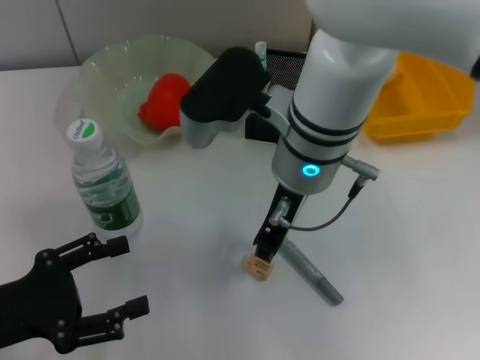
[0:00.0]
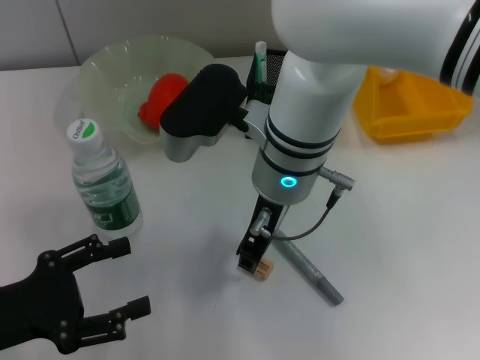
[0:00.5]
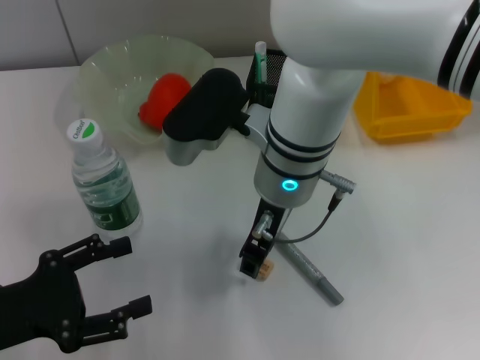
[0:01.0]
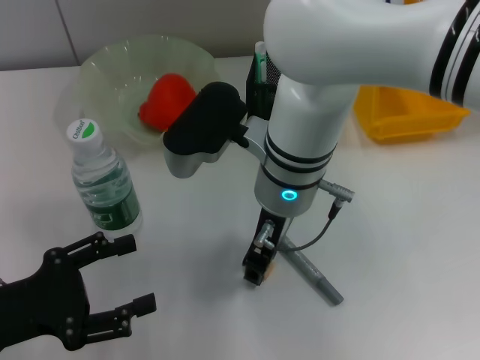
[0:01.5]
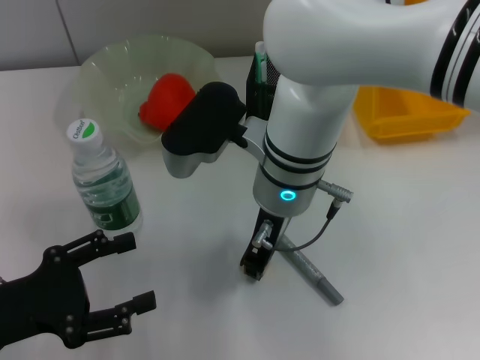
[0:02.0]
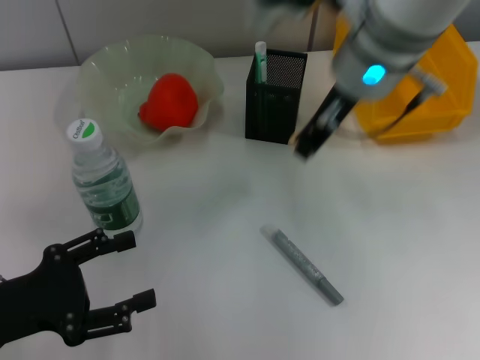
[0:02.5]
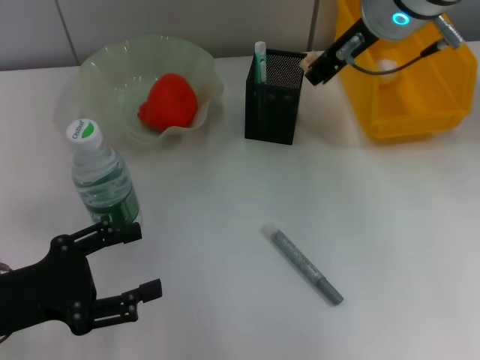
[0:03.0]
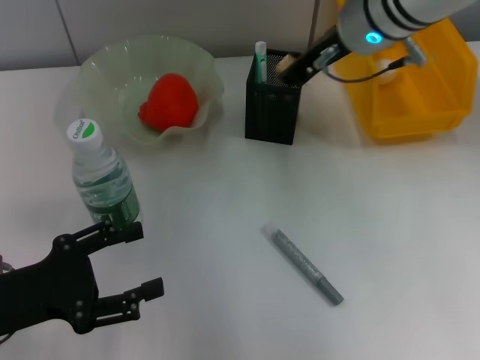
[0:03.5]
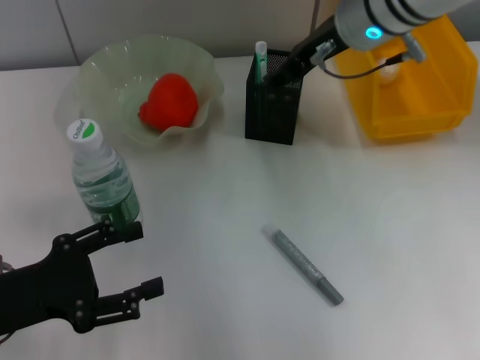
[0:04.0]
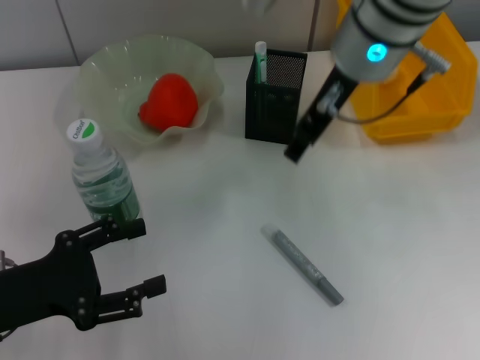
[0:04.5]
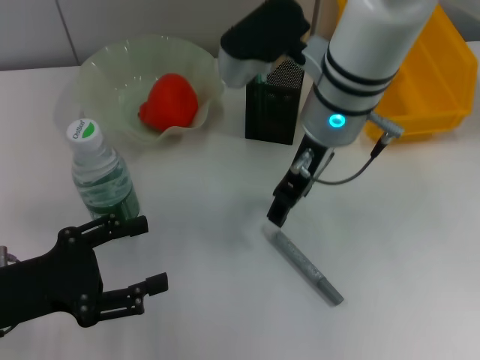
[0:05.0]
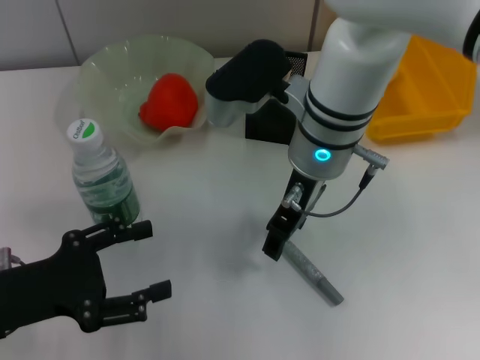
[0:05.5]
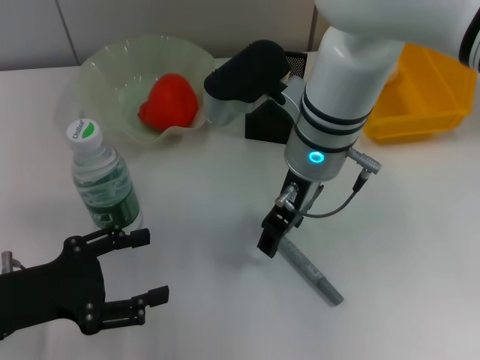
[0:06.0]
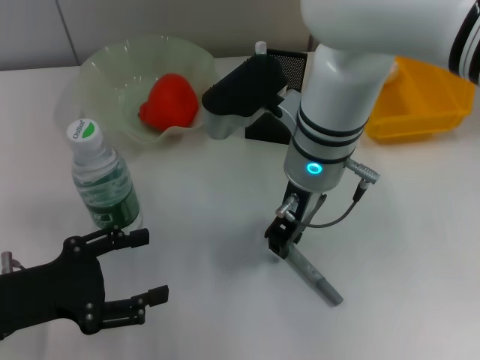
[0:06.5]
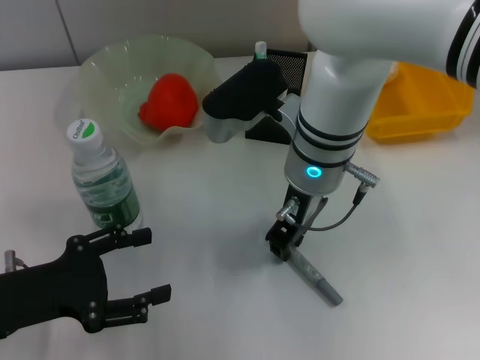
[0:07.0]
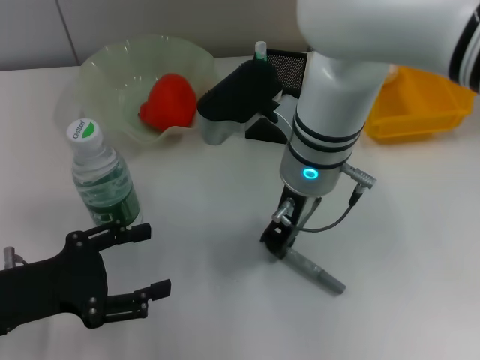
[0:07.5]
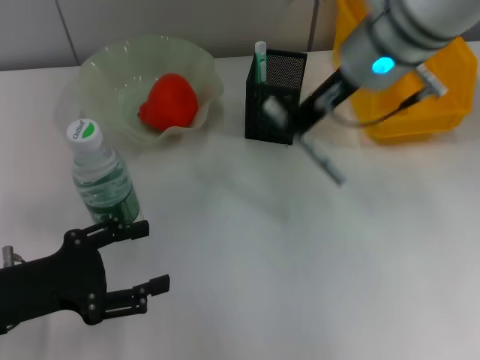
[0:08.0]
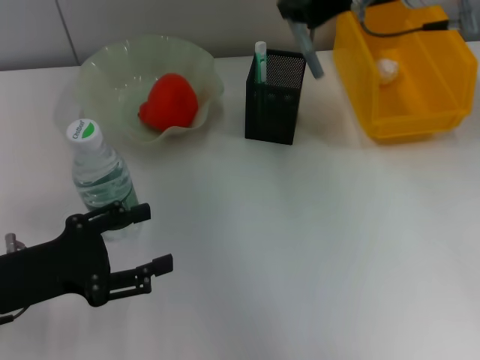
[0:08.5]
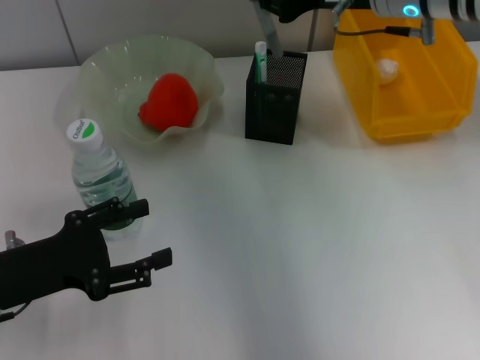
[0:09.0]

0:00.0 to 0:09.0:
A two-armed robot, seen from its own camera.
Step, 0:02.0 to 0:03.5: Put the eraser into the pen holder with the right hand.
Step, 0:04.0 to 0:07.0: Grab the gray glue with the right hand.
0:02.0 to 0:04.5: The right gripper shifts approximately 15 cm upward and to the right, and opens its fingers.
0:04.5 to 0:07.0: The right gripper moves downward, approximately 10 cm, and closes its fingers.
0:07.0 to 0:09.0: The right gripper heads to the right, upward and forward, covering roughly 15 cm.

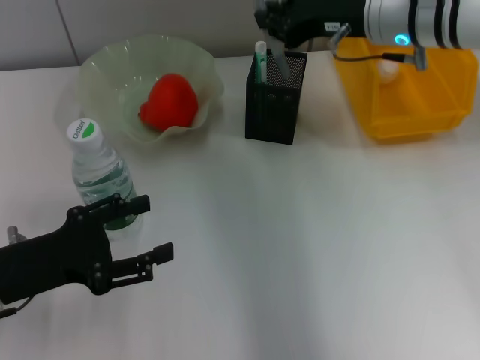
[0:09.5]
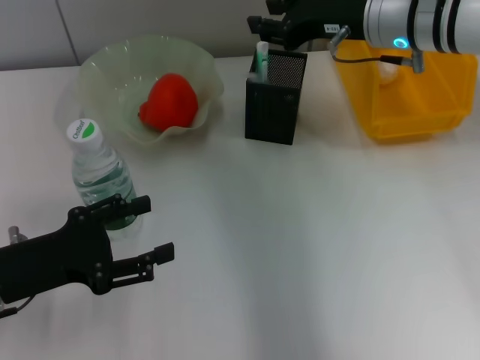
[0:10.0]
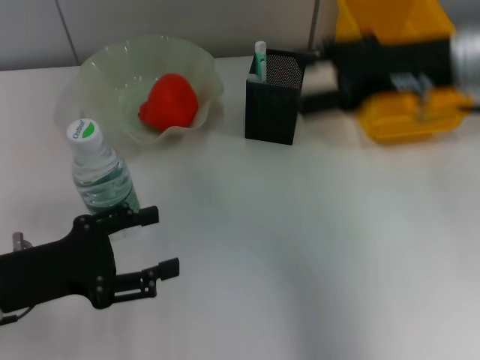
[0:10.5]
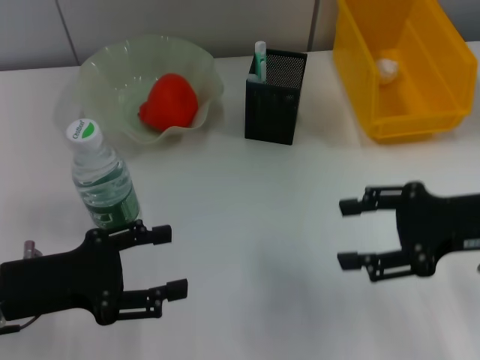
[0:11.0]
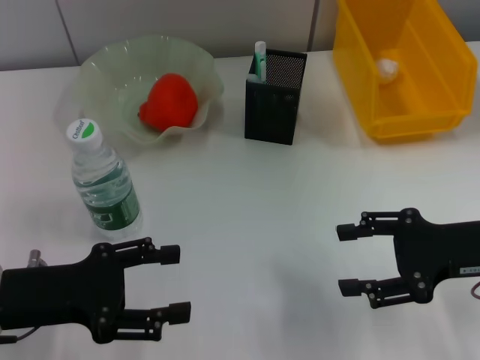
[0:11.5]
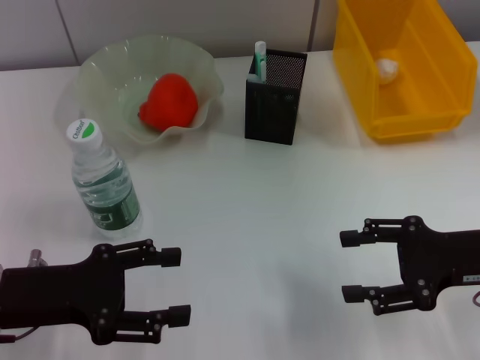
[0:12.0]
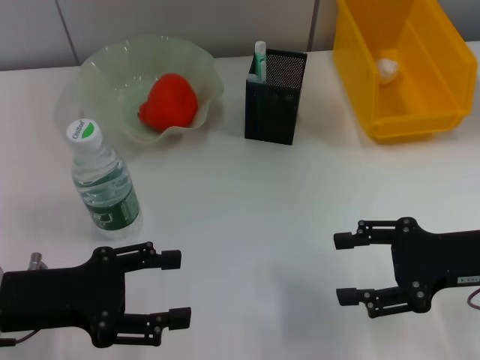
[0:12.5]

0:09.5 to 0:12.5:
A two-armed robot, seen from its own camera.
0:09.5 to 0:11.0: The right gripper moves backward, to the right and downward, roughly 20 cm, and opens its fingers.
0:11.0 to 0:12.5: The grippers make only small movements.

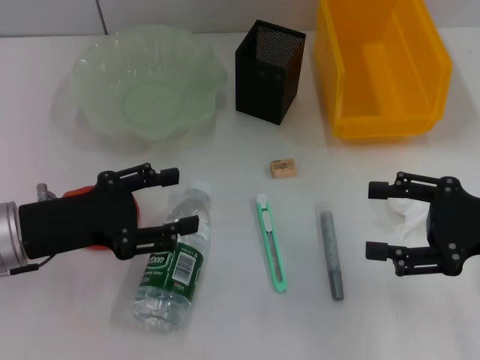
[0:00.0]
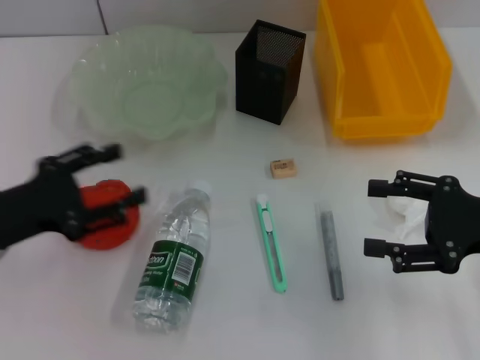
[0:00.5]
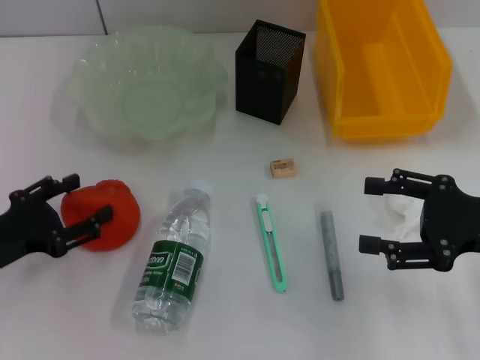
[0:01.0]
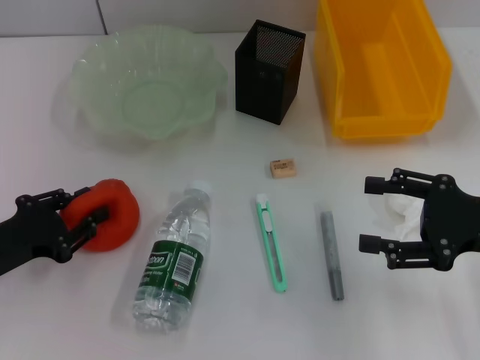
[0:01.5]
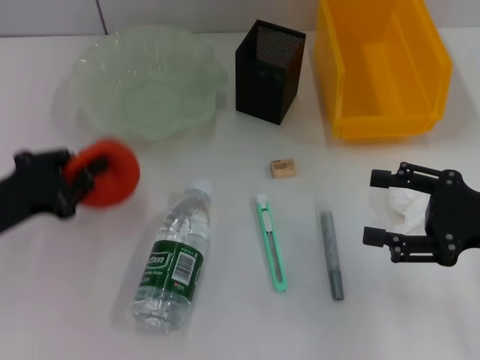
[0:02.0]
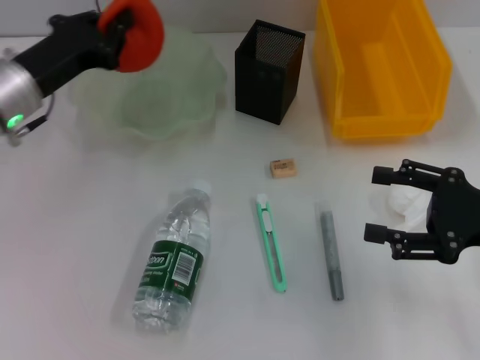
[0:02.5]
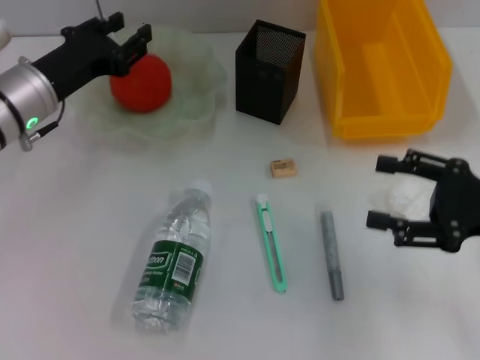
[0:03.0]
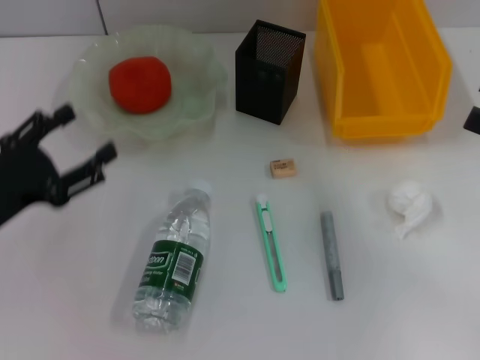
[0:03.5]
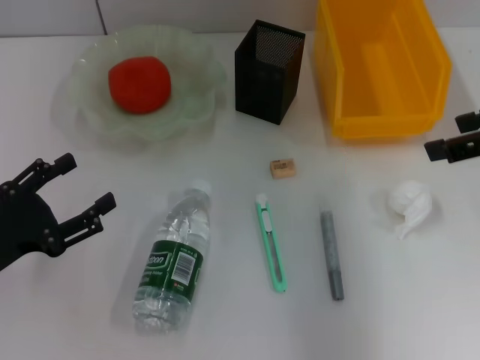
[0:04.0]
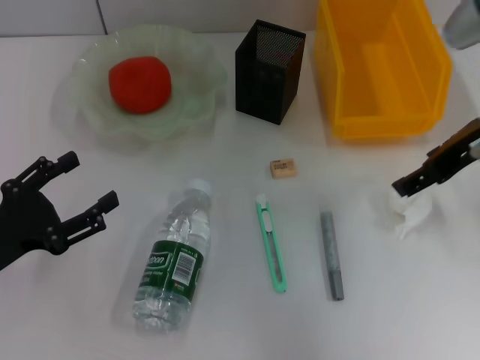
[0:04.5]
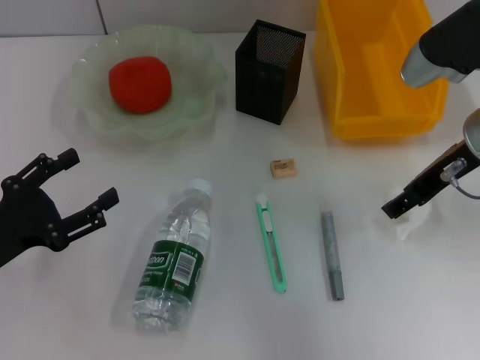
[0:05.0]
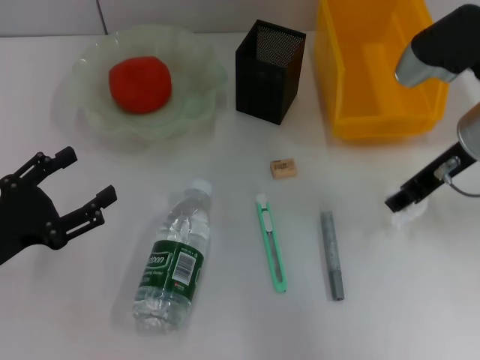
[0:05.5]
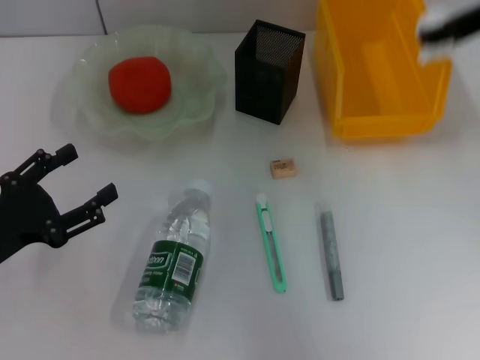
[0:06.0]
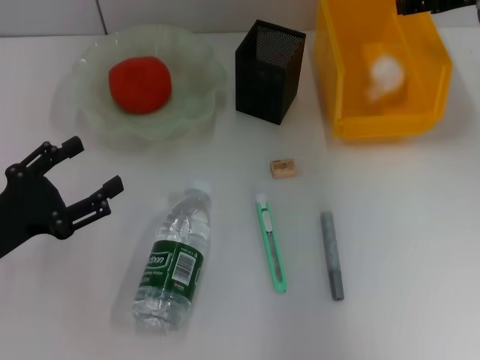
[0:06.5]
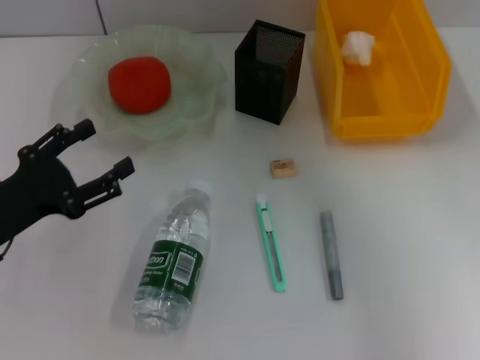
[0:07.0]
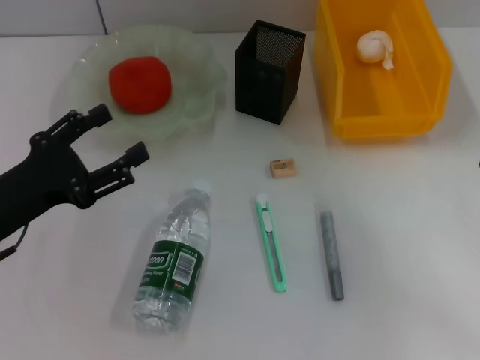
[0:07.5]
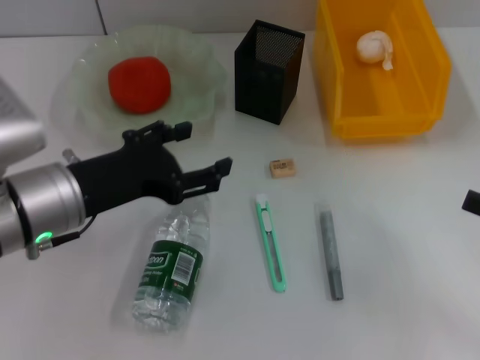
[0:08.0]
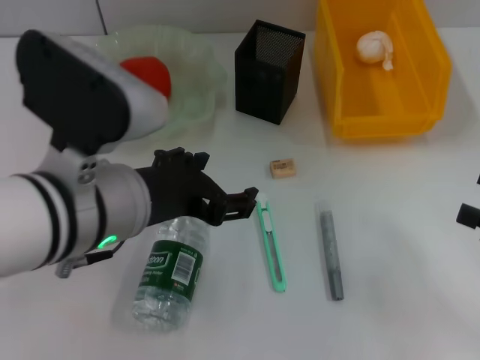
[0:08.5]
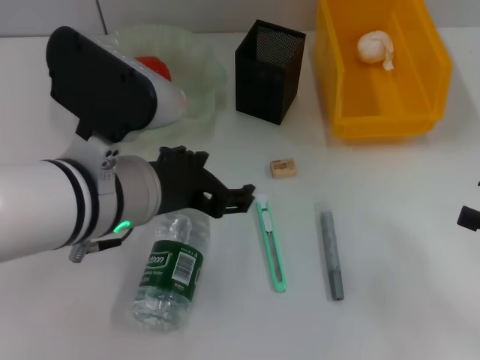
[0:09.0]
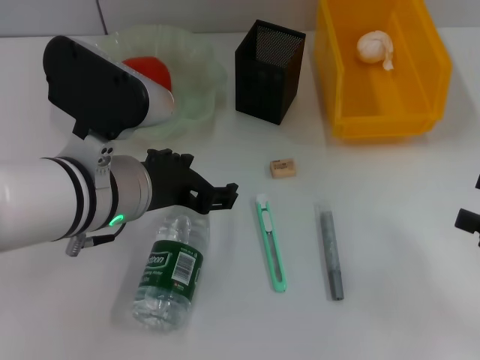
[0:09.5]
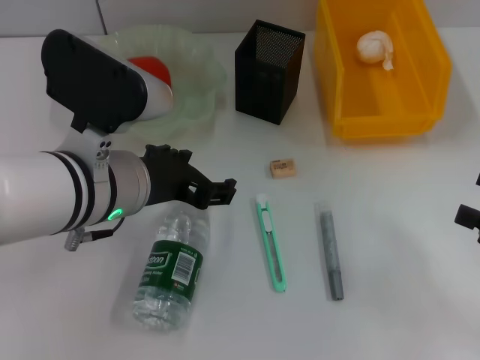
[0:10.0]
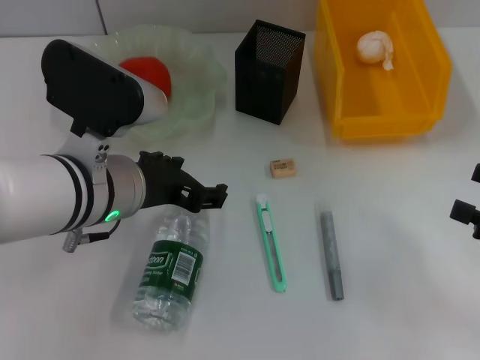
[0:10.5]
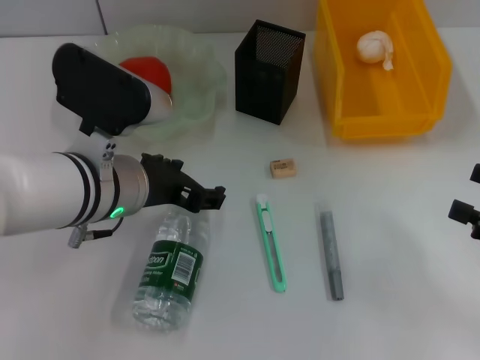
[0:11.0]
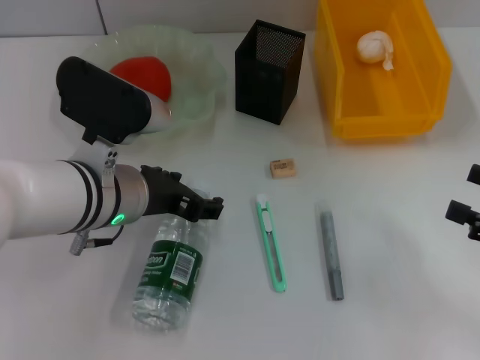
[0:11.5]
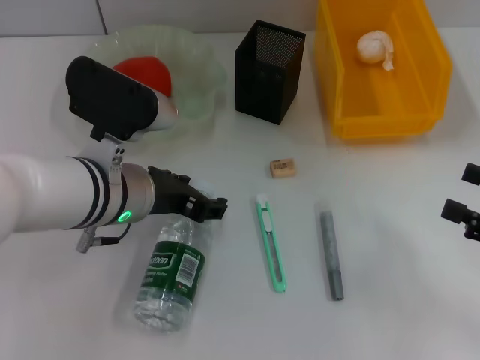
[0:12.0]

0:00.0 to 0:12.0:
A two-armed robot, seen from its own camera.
Step, 0:00.0 to 0:01.5: Grab the orange with the left hand.
Step, 0:02.0 to 0:03.0: Place the orange into the fruit bowl with the left hand.
Step, 0:03.5 to 0:05.5: Grab the paper ball with the right hand.
Step, 0:06.0 to 0:07.0: Place the paper ball into the trash can with the right hand.
0:00.0 to 0:02.0: The left gripper shifts by approximately 5 cm, and closes.
0:02.0 to 0:04.0: The left gripper travels forward and back again, roughly 15 cm each way, and opens up, while the right gripper travels upward by approximately 15 cm.
0:04.0 to 0:06.0: The right gripper moves forward, about 10 cm, moves roughly 10 cm downward and comes back, and closes up.
0:06.0 to 0:08.0: The left gripper shifts roughly 10 cm to the right and forward. Meanwhile the right gripper is displaced backward, downward and to the right by approximately 25 cm, and opens its fingers.
0:08.0 to 0:10.0: The left gripper travels to the right and upward by about 10 cm.
0:10.0 to 0:12.0: The grippers move only a little.

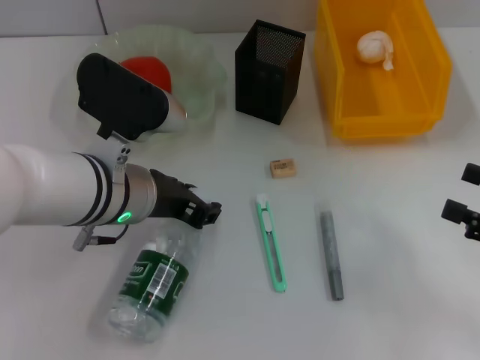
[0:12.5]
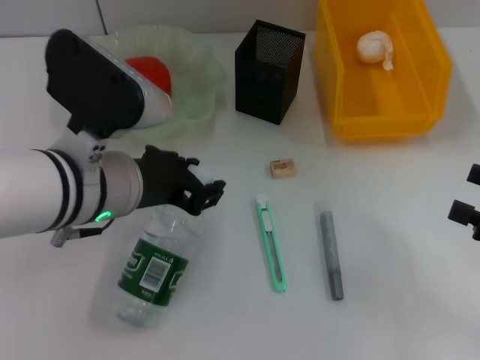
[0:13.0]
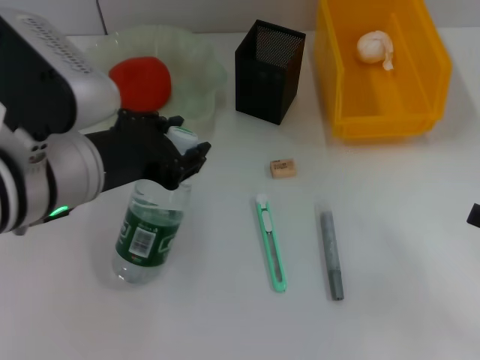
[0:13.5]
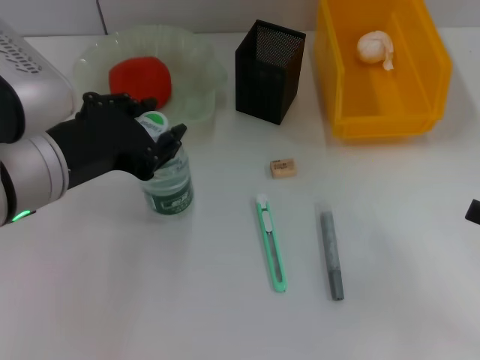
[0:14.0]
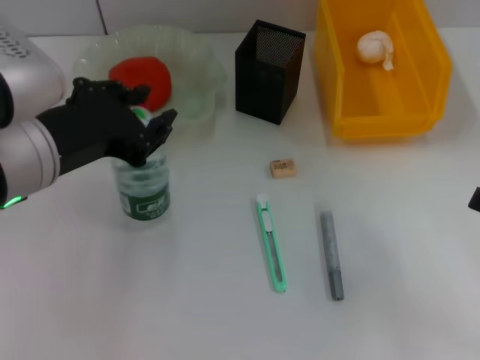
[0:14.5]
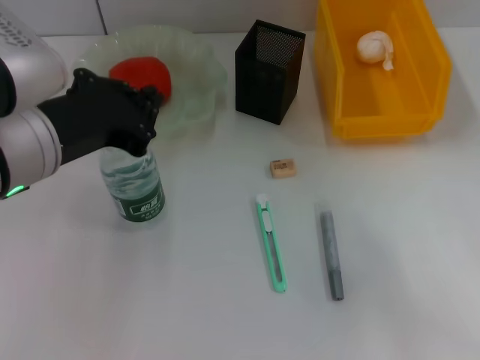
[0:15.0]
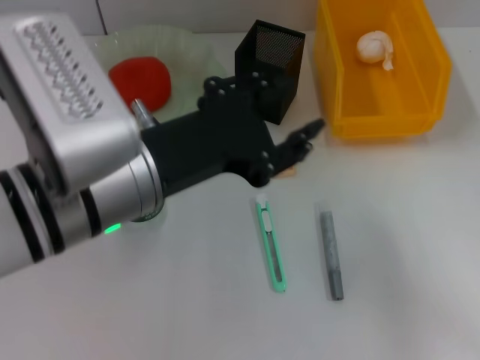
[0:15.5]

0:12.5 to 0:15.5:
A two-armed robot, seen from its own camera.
Step, 0:13.0 to 0:15.0: Place the water bottle on the table with the left hand.
0:12.5 to 0:14.0: The left gripper is displaced upward and backward by approximately 10 cm.
0:14.0 to 0:15.5: The left gripper shifts roughly 5 cm to the right.
